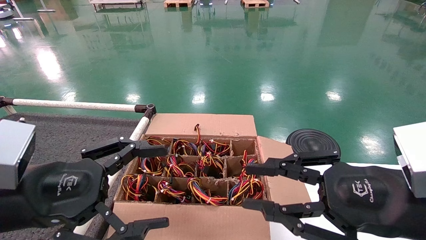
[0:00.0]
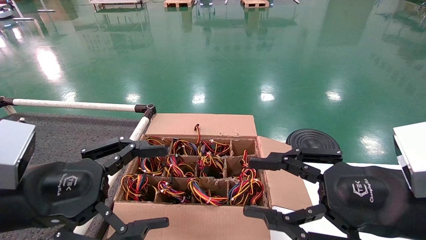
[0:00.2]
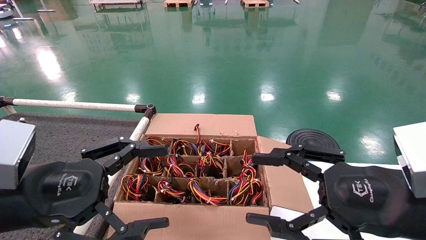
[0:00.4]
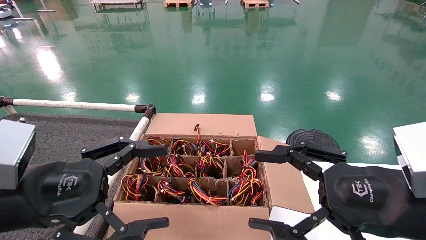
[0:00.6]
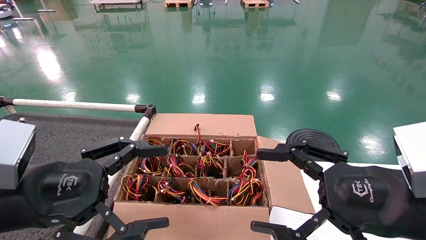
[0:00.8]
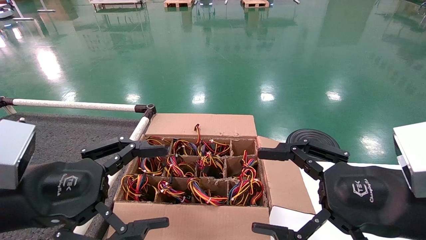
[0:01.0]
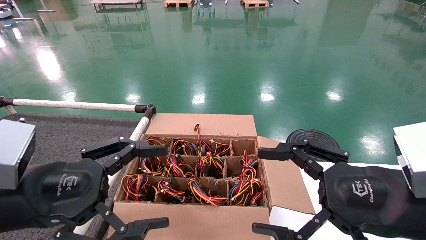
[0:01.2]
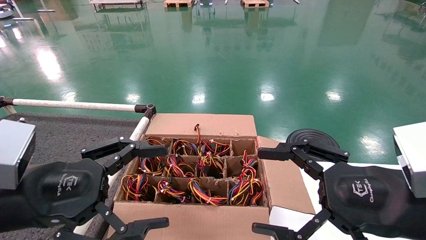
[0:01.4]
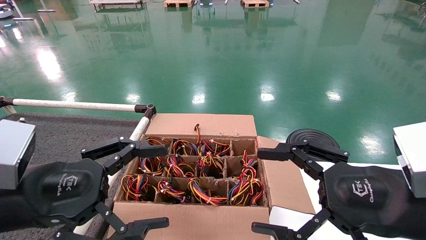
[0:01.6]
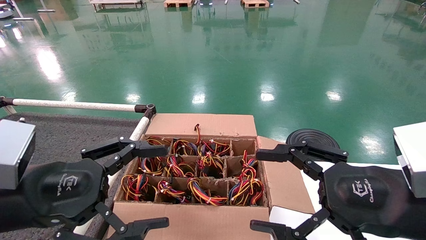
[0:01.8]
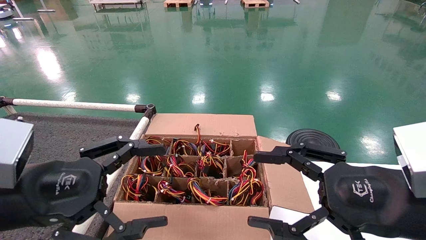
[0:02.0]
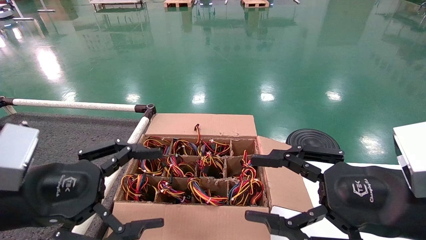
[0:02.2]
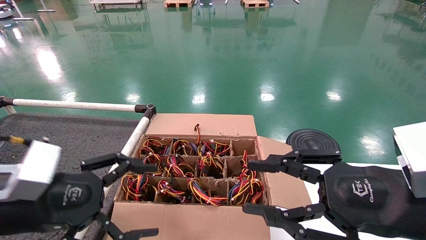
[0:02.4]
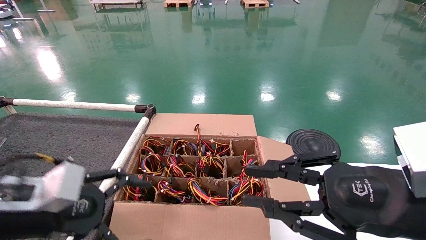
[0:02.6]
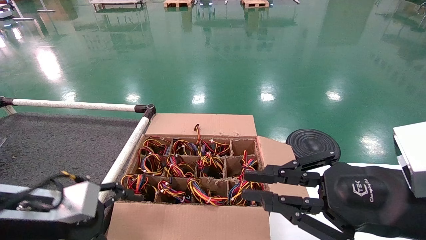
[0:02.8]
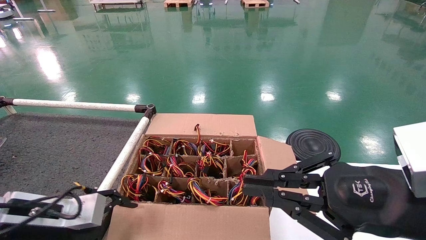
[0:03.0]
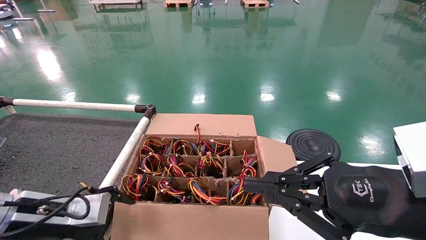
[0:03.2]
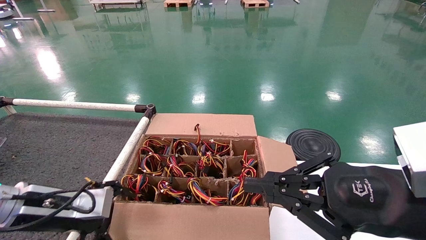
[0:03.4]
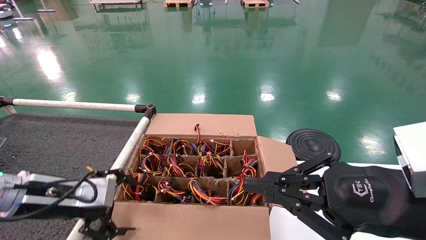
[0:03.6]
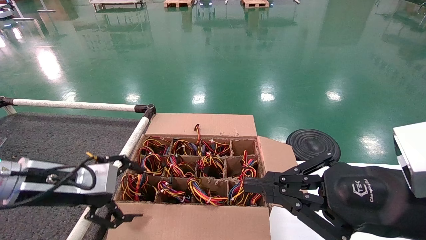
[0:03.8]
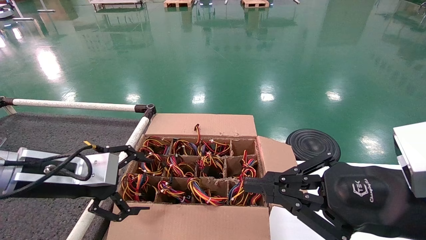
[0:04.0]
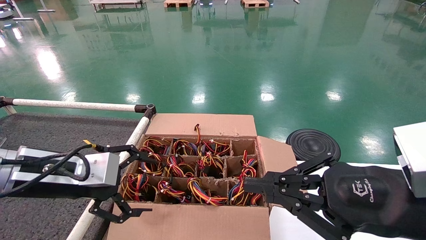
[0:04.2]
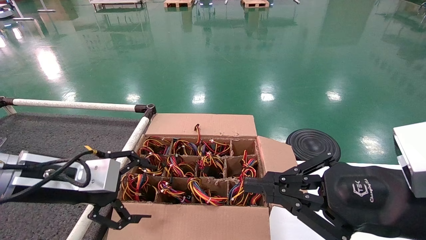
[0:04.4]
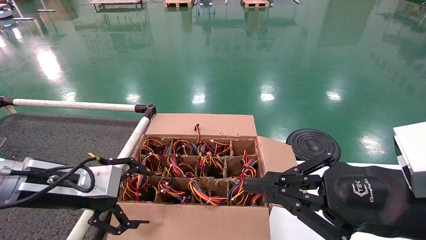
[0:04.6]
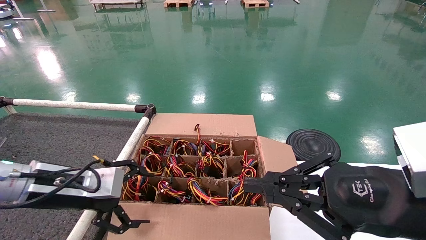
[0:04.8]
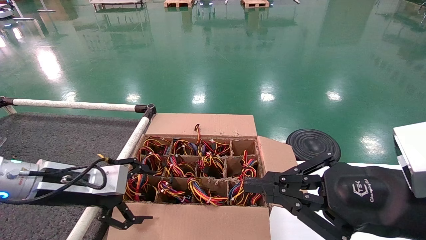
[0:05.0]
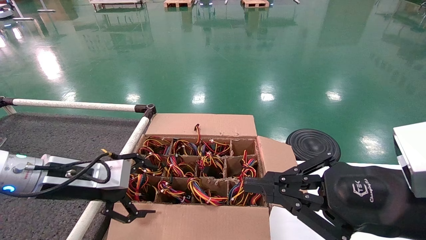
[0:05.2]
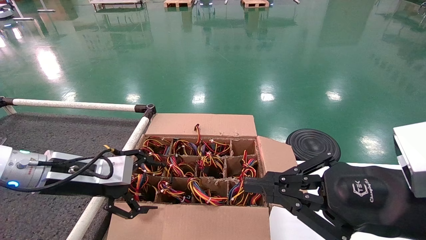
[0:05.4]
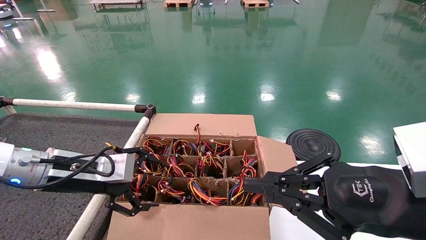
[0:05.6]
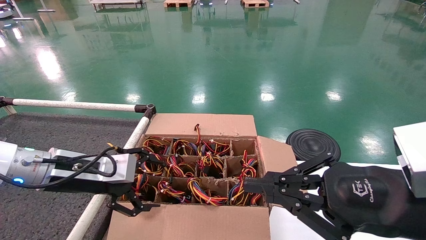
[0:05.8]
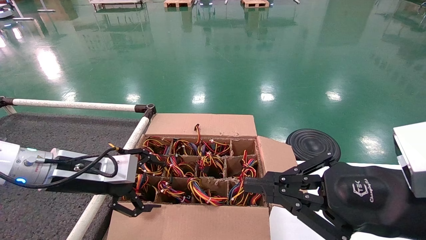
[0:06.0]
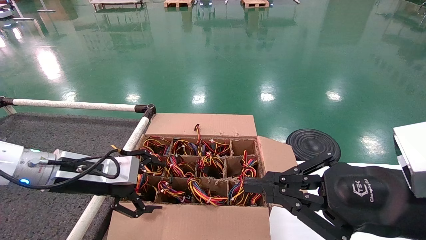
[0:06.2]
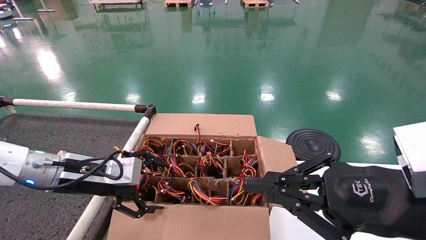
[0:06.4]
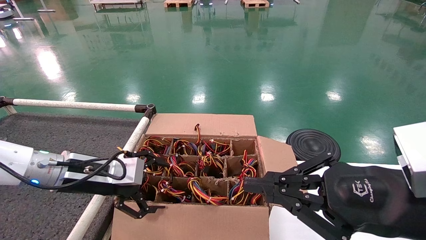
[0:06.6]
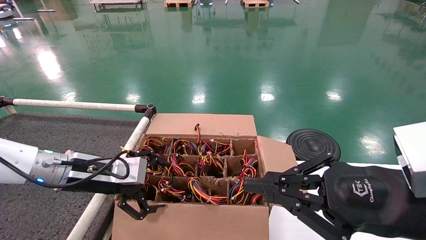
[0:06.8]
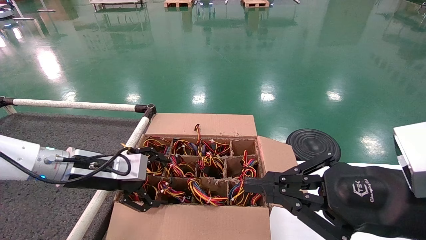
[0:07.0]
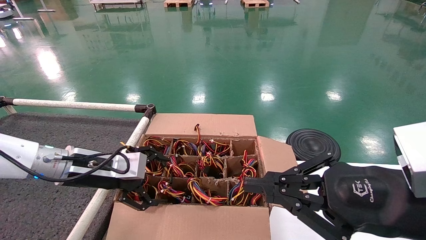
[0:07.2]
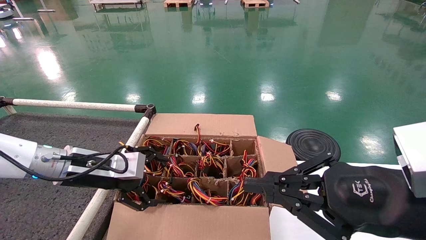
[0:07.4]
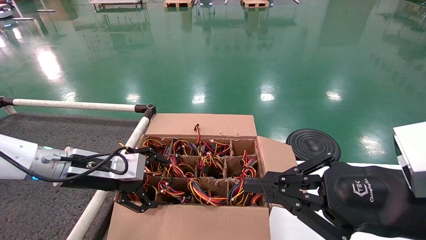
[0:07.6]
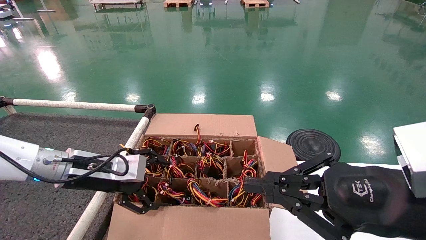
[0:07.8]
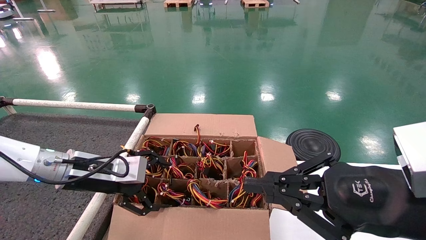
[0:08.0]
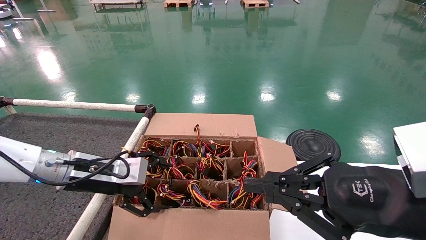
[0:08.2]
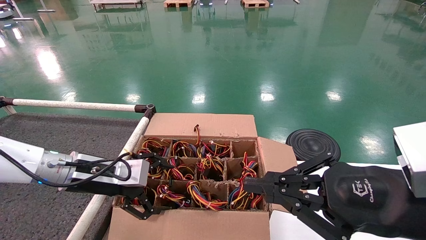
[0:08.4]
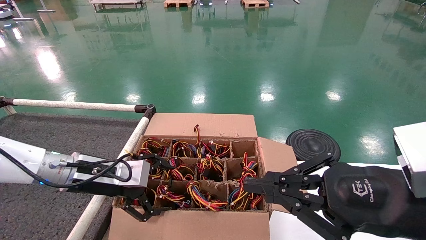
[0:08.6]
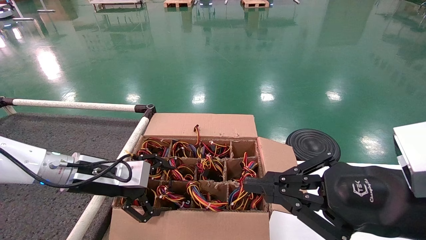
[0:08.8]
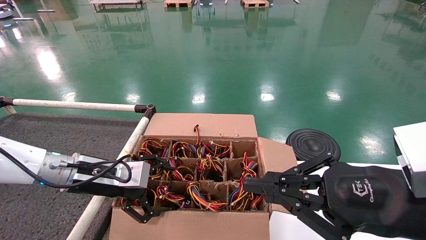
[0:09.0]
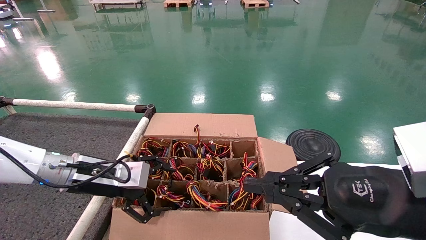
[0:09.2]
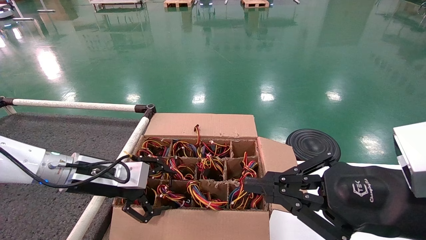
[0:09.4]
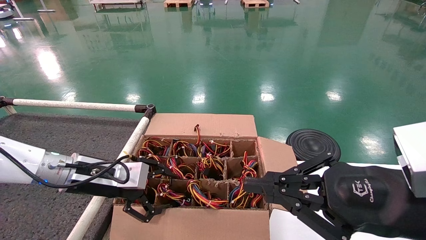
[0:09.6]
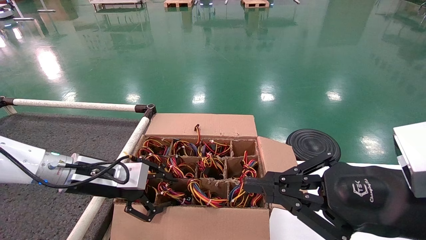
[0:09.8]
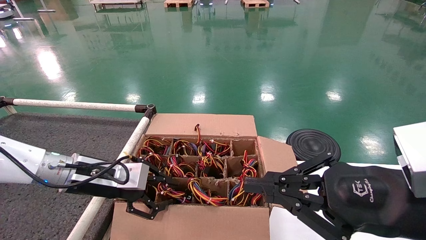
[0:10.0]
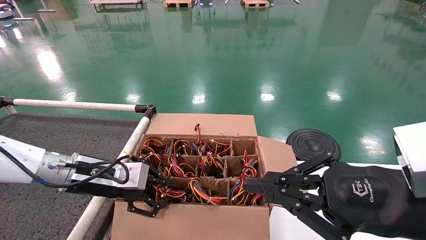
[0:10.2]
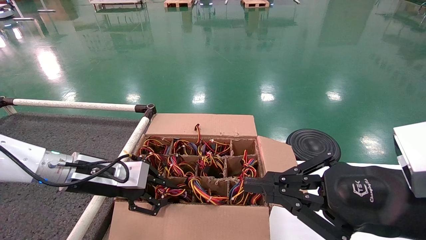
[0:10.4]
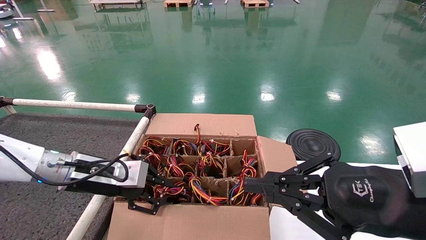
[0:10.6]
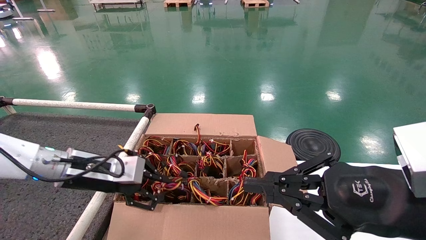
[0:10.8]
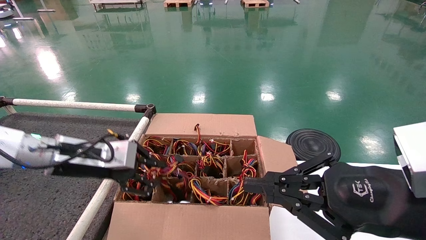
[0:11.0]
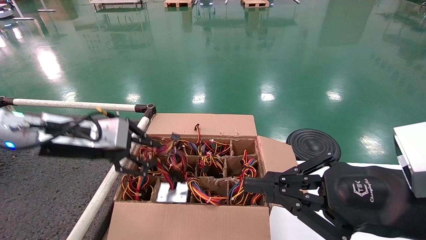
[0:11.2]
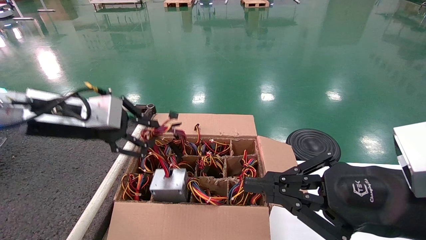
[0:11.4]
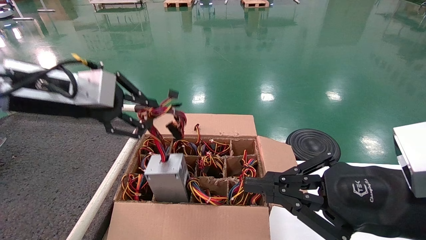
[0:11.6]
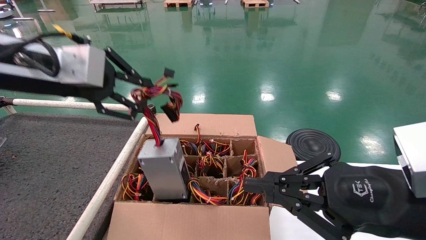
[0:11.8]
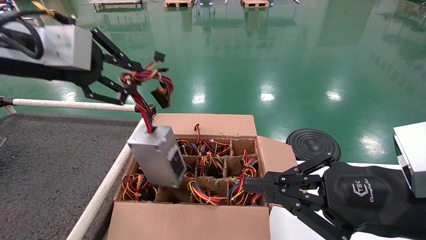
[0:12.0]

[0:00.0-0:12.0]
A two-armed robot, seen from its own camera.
Step, 0:02.4 to 0:10.2: Grab and lift the power supply from the large box.
0:00.0 to 0:01.6: The right gripper opens up.
0:01.6 to 0:03.0: The right gripper closes its fingers; the left gripper is displaced downward and forward by approximately 10 cm.
0:03.0 to 0:04.4: The left gripper shifts approximately 5 cm upward.
0:04.4 to 0:06.0: The left gripper moves some 5 cm.
0:06.0 to 0:09.0: There are only small adjustments of the grippers.
0:09.0 to 0:10.4: The left gripper closes its fingers.
0:10.4 to 0:12.0: The left gripper moves upward, about 25 cm.

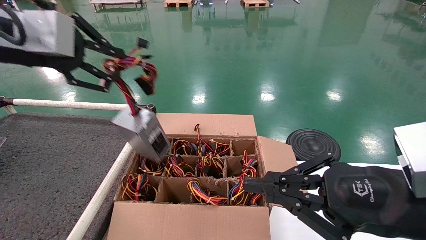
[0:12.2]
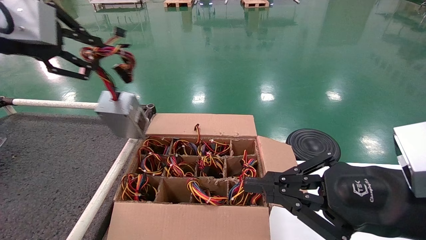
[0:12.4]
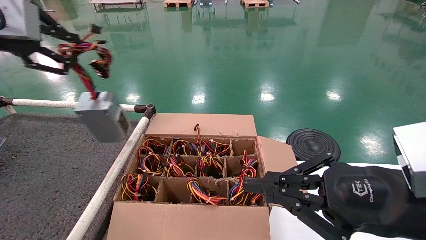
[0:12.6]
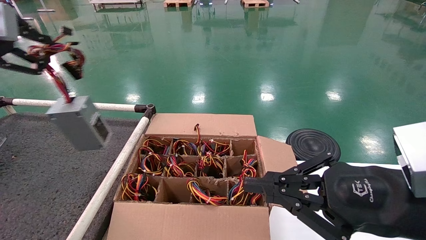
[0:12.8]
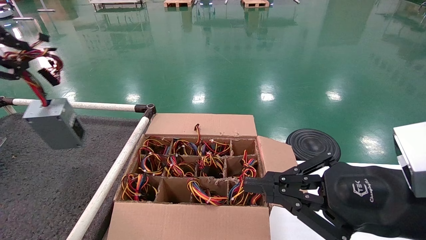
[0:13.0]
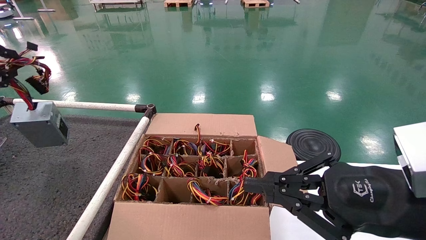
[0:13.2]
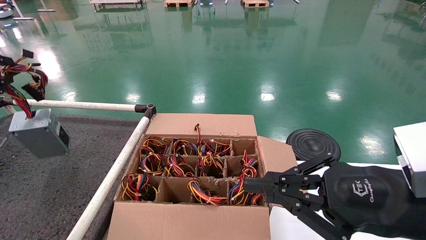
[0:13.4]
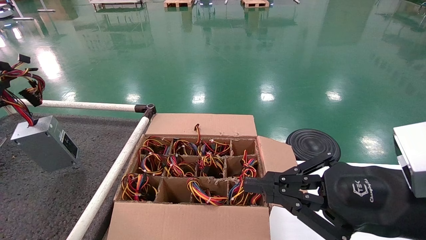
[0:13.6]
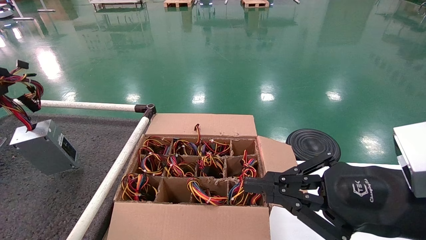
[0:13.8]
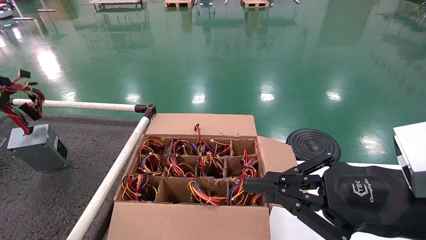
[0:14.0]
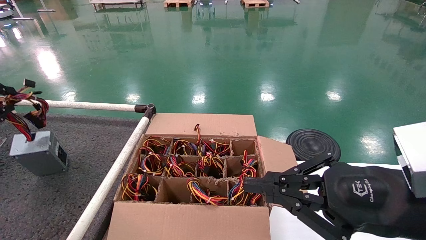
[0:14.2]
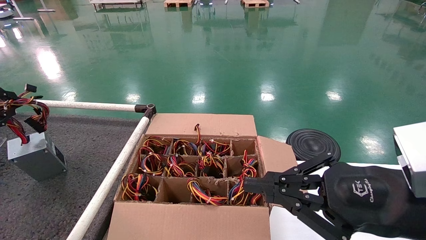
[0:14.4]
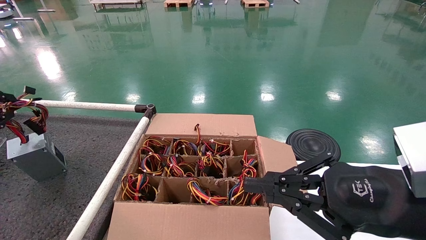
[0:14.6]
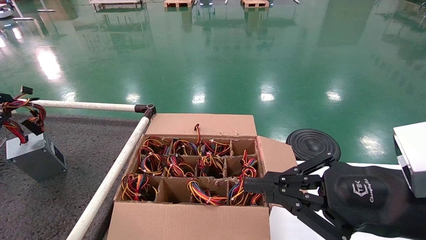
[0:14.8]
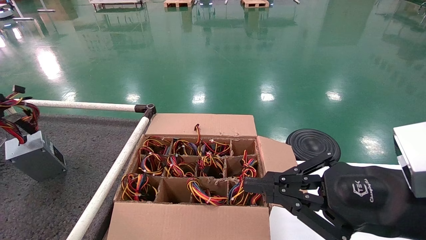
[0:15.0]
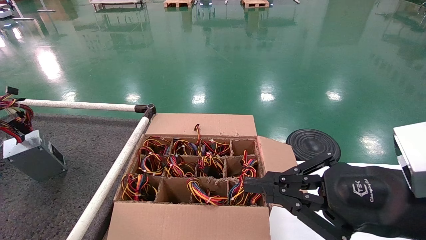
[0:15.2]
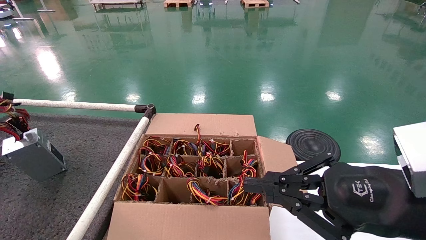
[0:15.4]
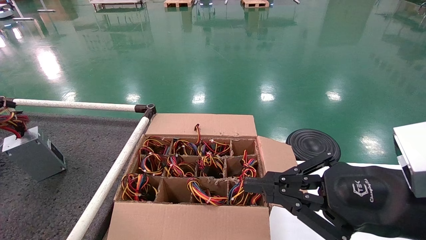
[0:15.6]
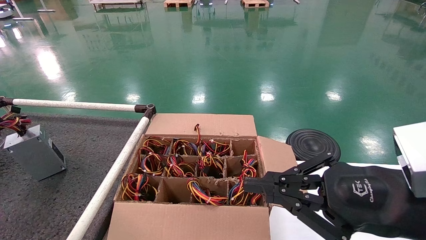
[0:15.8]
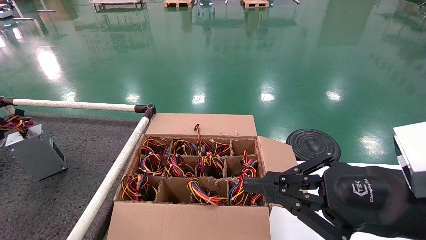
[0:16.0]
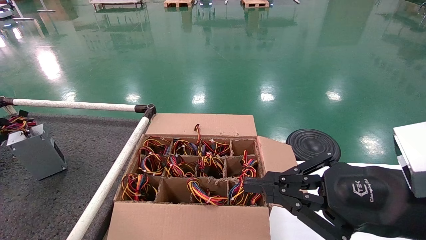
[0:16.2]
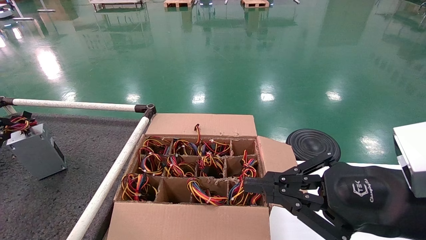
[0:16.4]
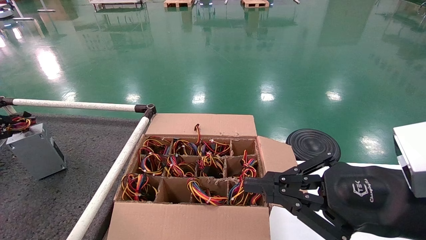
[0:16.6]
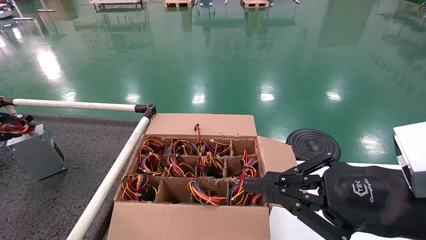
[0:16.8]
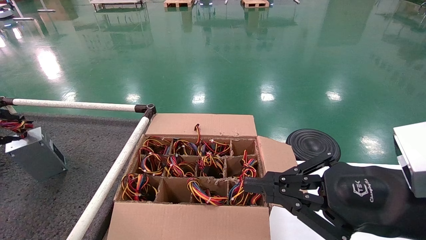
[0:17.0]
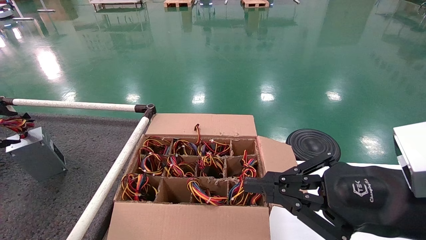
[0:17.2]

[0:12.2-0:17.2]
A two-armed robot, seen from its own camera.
0:12.2 to 0:13.8: The left gripper moves to the left, about 20 cm.
0:13.8 to 0:15.6: The left gripper shifts some 10 cm downward and to the left.
0:15.6 to 0:17.2: The left gripper opens up.
